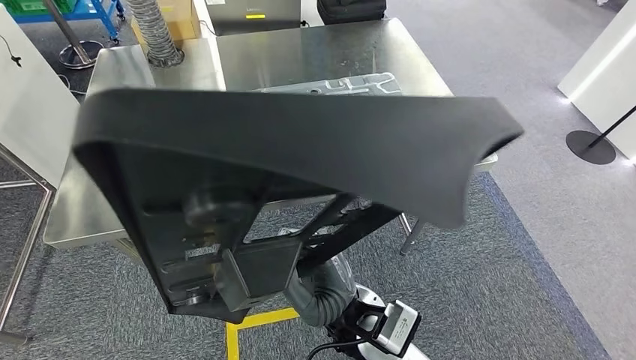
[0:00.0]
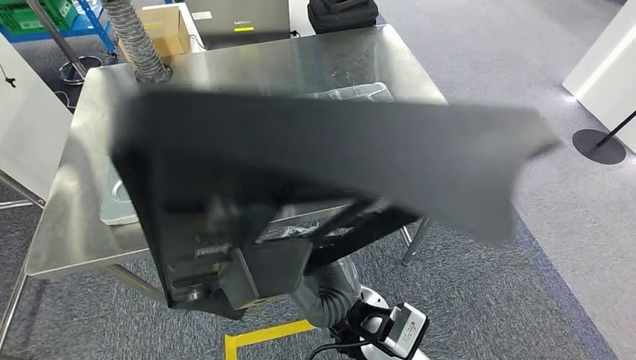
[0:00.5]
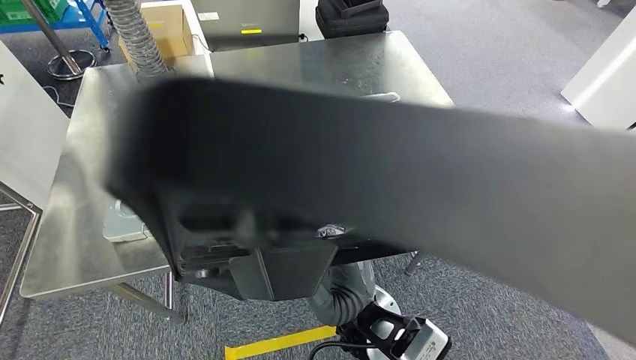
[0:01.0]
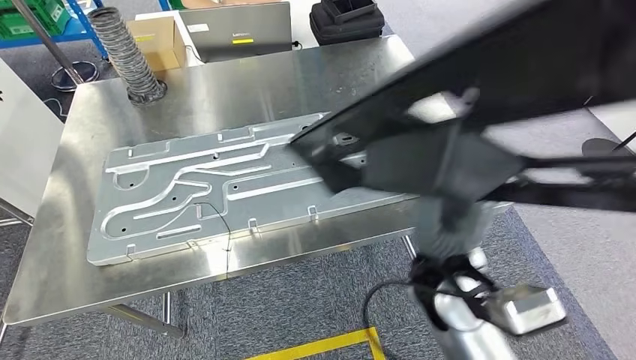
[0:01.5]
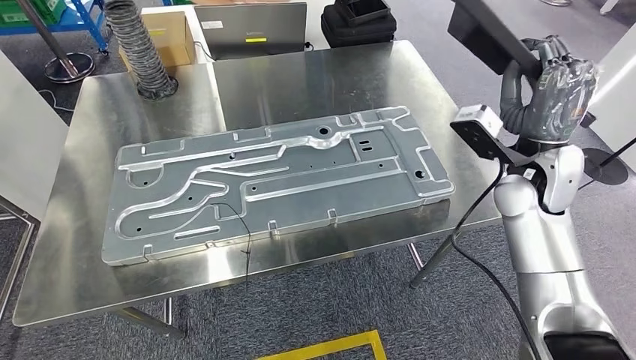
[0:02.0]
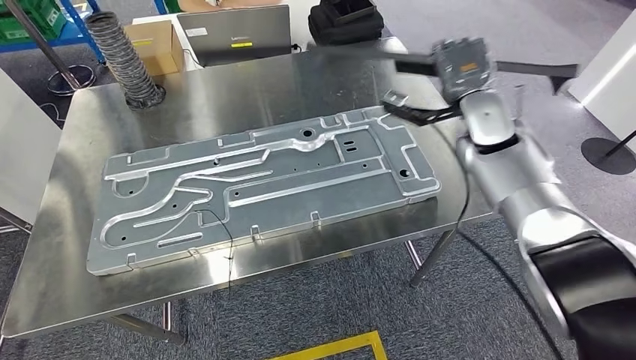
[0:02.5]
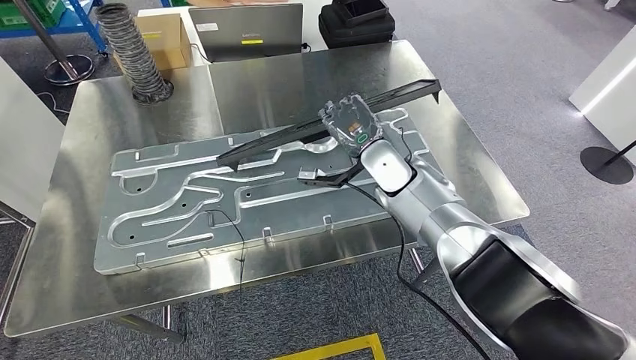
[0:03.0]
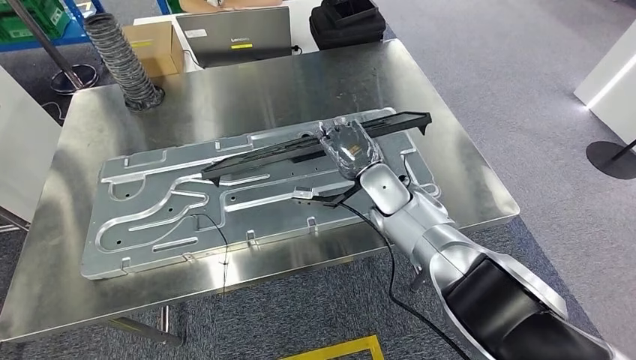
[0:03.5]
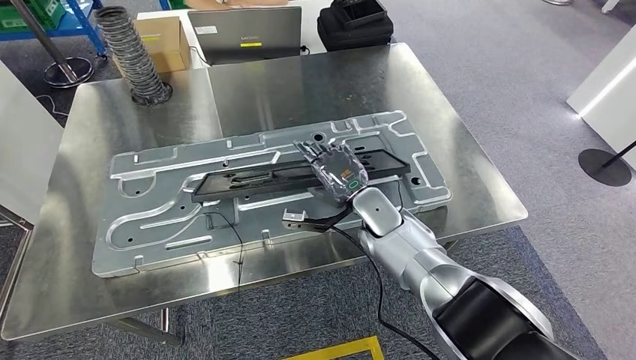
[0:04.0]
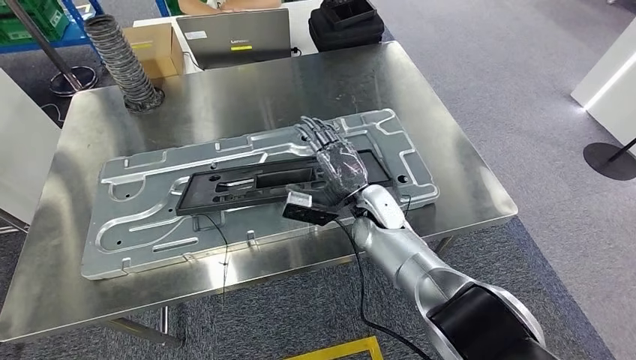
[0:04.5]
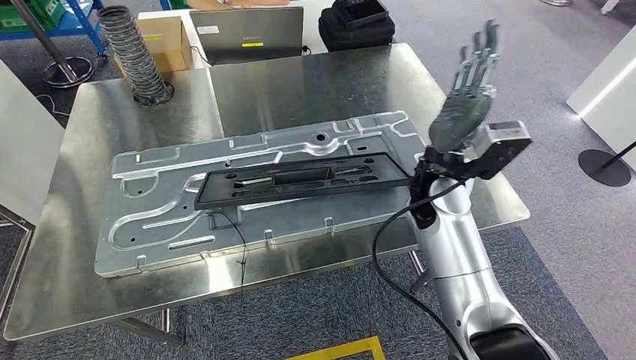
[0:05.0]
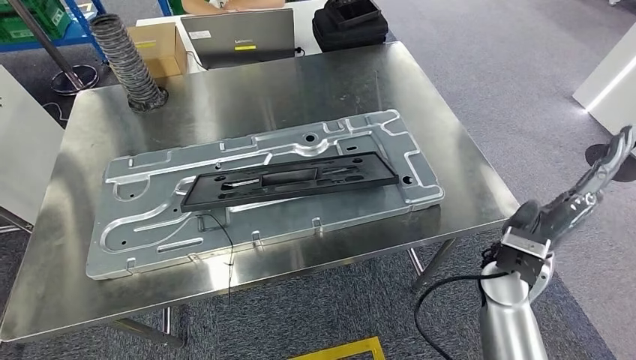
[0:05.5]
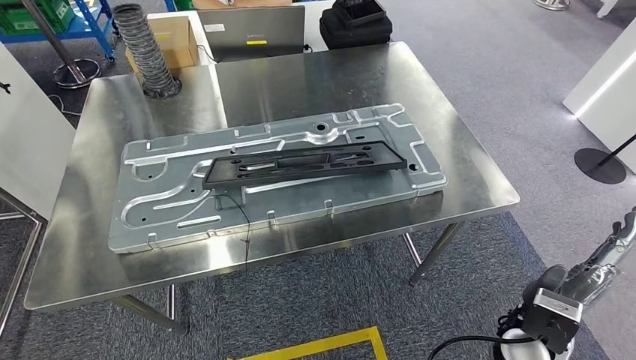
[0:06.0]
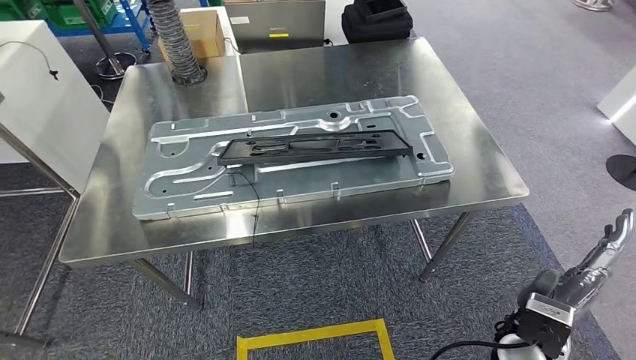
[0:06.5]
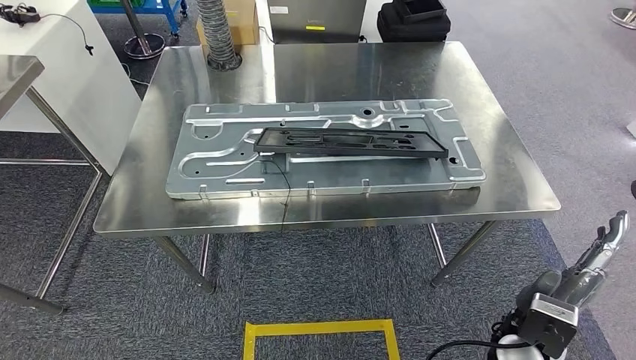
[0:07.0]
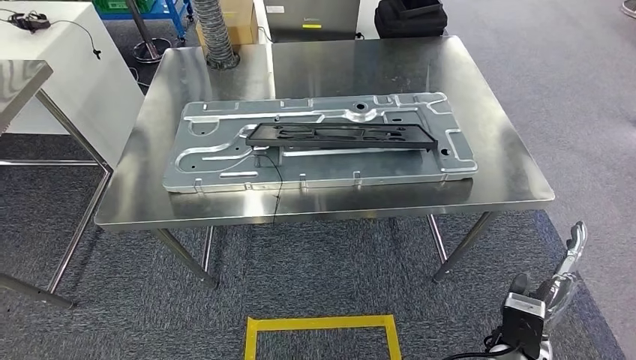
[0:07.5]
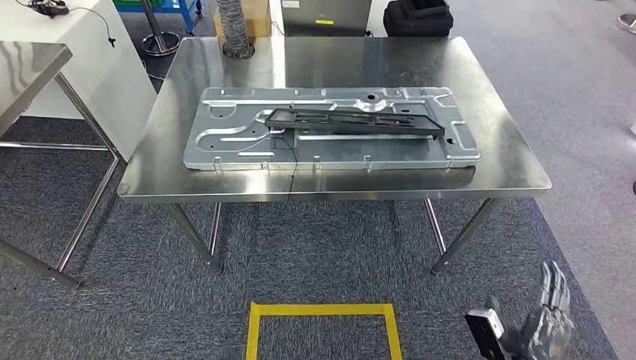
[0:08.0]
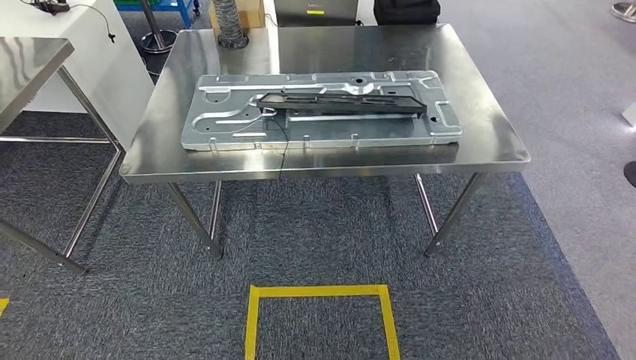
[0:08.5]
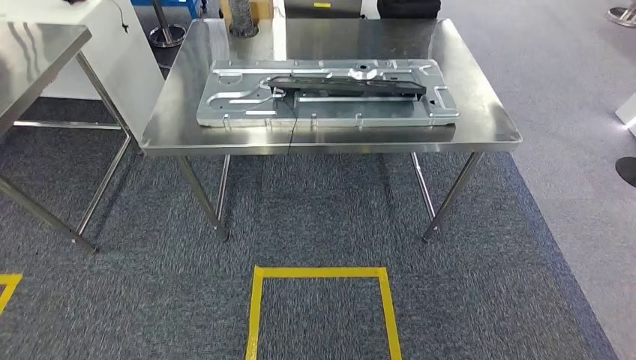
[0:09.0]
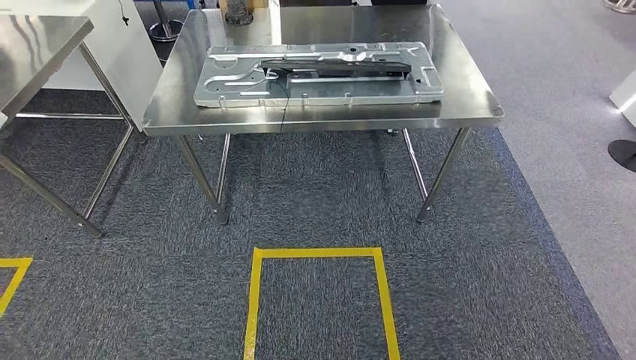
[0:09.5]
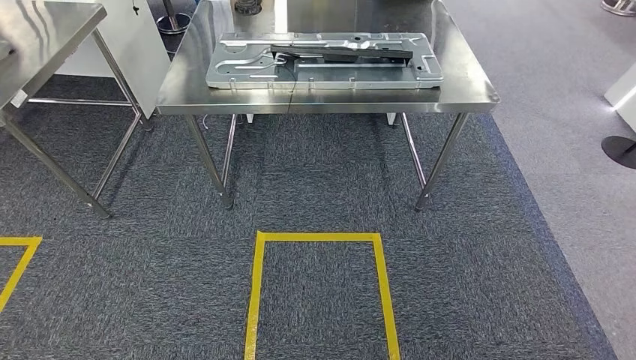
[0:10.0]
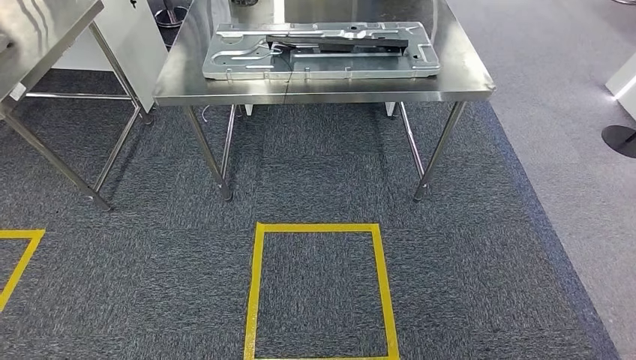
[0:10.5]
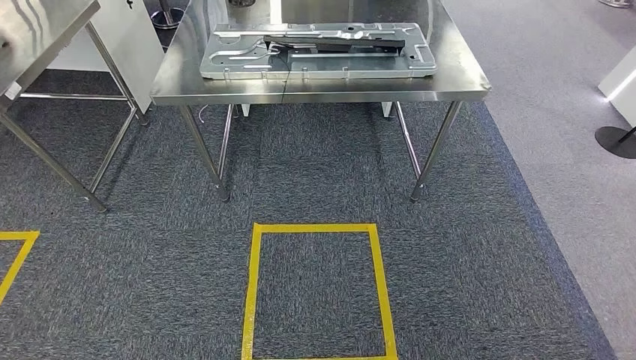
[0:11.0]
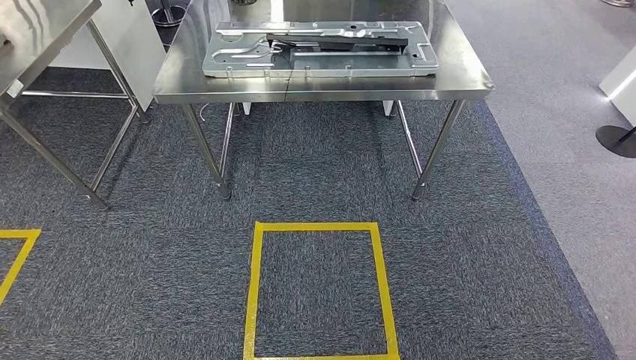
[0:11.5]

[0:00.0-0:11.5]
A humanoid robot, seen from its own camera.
Step, 0:00.0 to 0:03.0: Move the large material to the workbench.
Step, 0:03.5 to 0:06.0: Insert the large material into the corresponding slot on the workbench.
Step, 0:06.5 to 0:11.5: Move to the initial position of the shelf.
